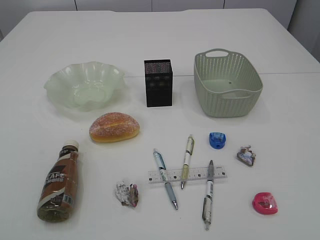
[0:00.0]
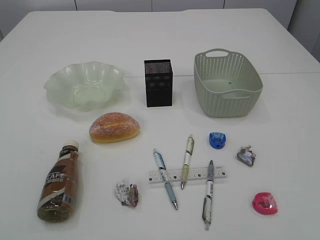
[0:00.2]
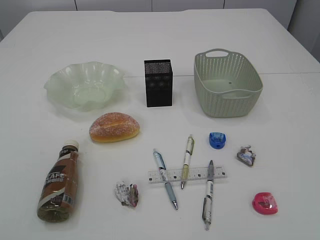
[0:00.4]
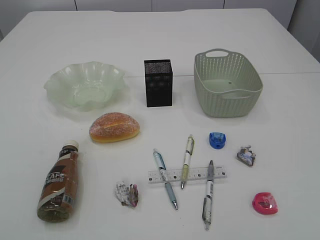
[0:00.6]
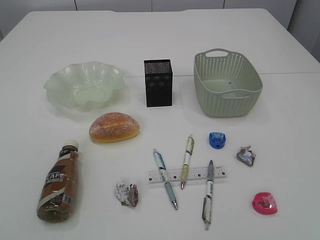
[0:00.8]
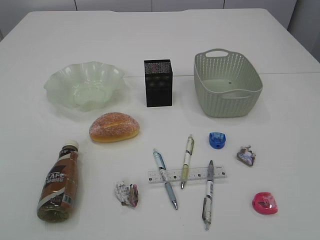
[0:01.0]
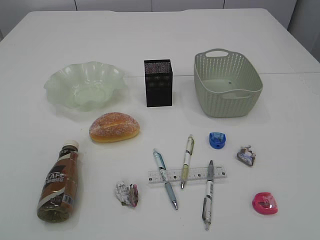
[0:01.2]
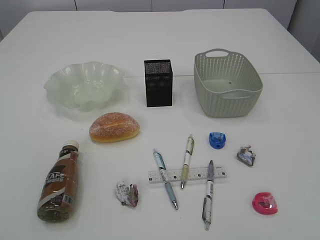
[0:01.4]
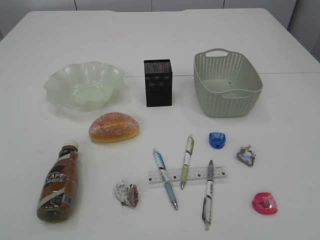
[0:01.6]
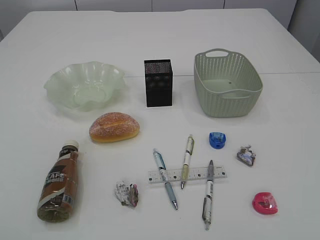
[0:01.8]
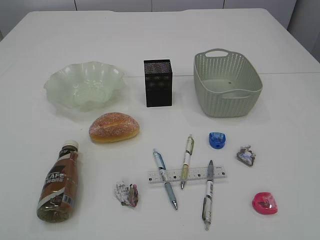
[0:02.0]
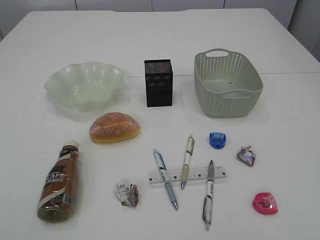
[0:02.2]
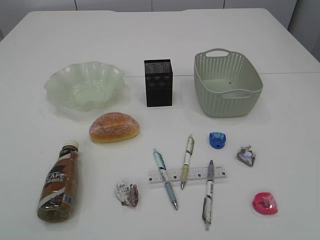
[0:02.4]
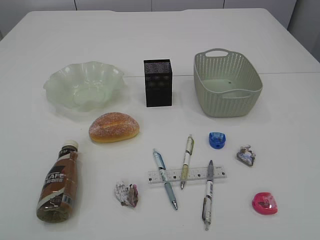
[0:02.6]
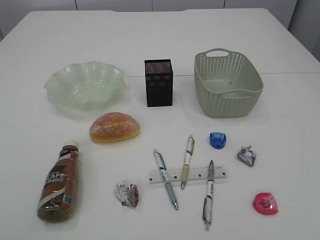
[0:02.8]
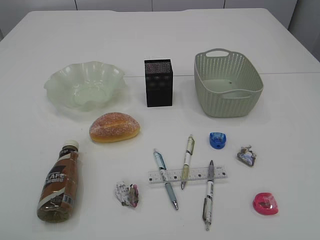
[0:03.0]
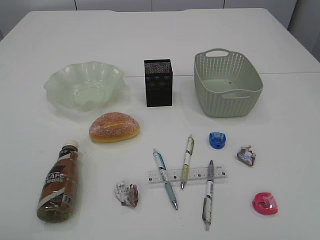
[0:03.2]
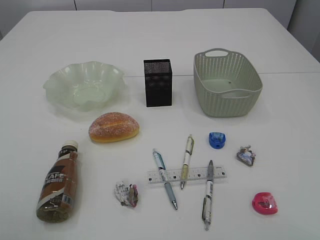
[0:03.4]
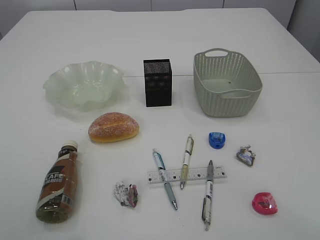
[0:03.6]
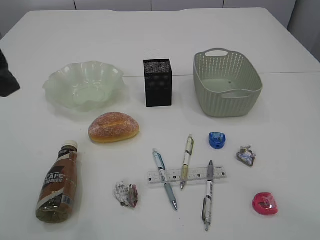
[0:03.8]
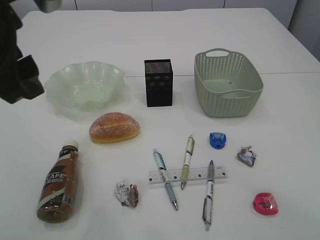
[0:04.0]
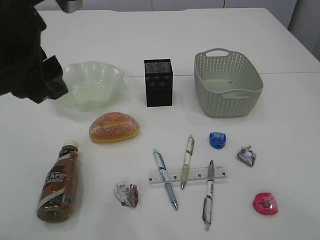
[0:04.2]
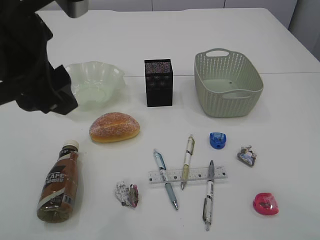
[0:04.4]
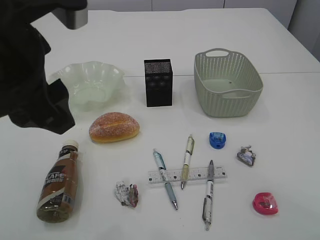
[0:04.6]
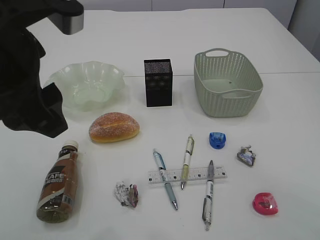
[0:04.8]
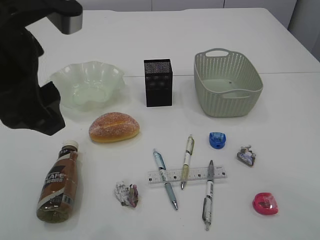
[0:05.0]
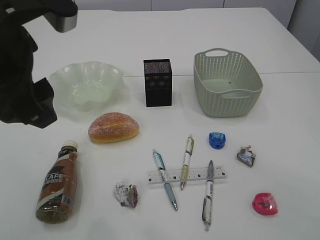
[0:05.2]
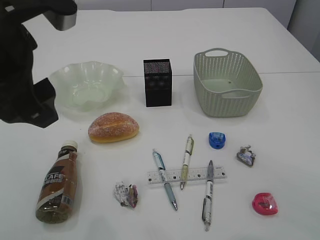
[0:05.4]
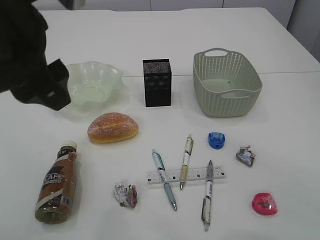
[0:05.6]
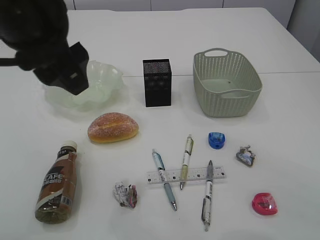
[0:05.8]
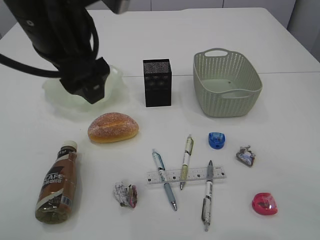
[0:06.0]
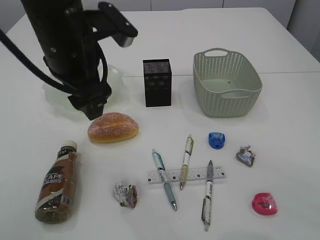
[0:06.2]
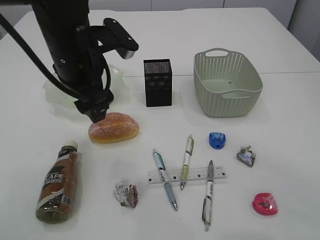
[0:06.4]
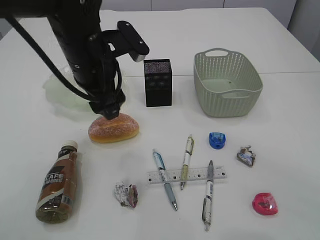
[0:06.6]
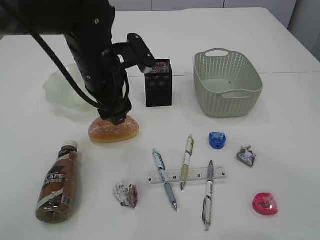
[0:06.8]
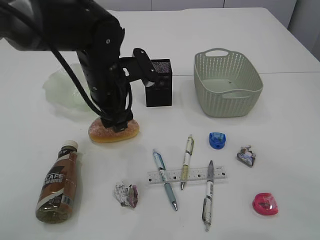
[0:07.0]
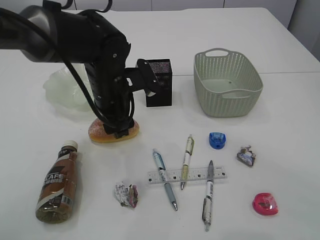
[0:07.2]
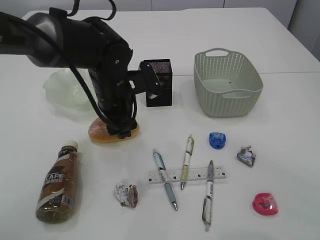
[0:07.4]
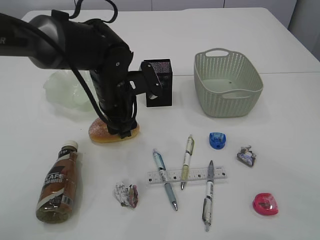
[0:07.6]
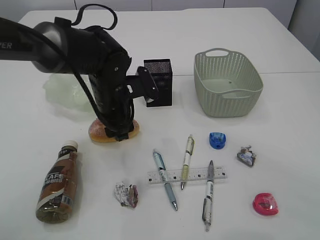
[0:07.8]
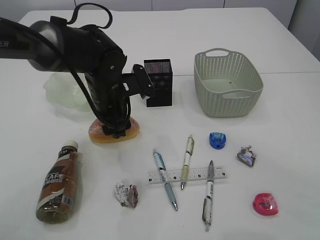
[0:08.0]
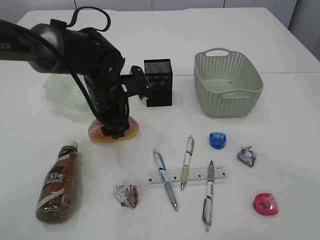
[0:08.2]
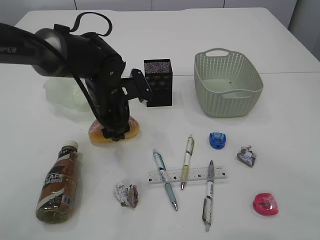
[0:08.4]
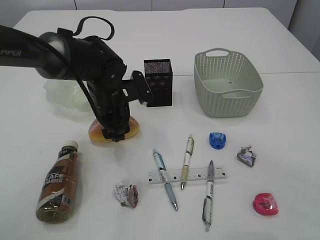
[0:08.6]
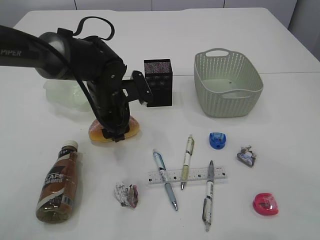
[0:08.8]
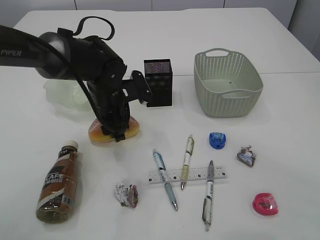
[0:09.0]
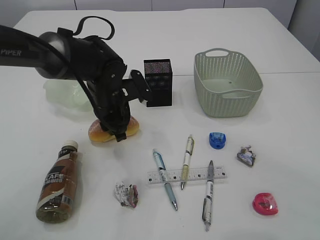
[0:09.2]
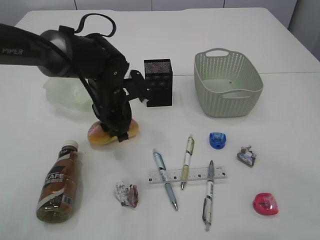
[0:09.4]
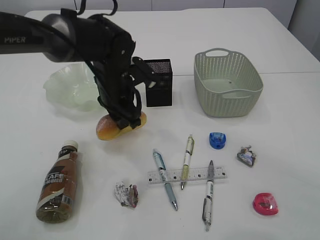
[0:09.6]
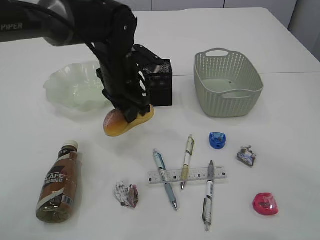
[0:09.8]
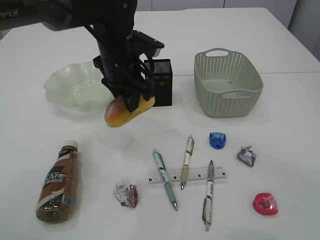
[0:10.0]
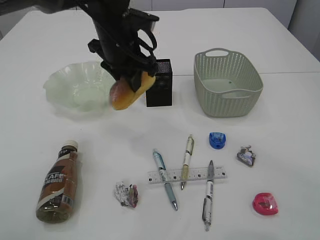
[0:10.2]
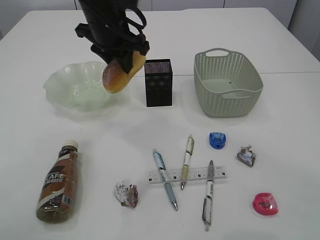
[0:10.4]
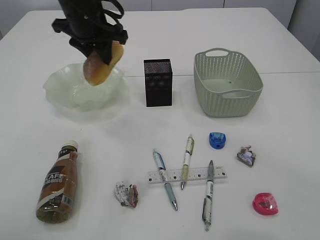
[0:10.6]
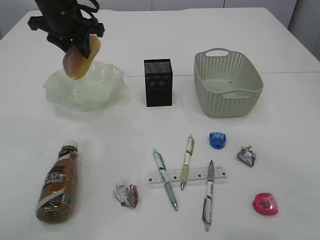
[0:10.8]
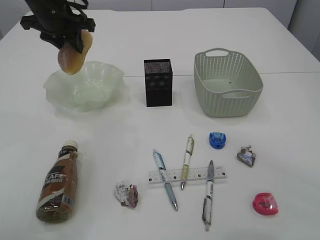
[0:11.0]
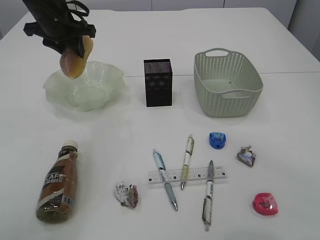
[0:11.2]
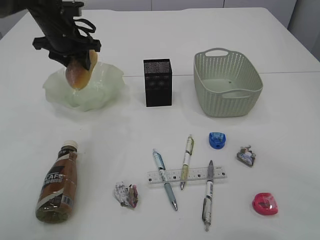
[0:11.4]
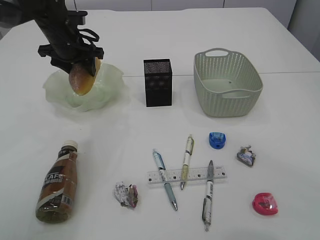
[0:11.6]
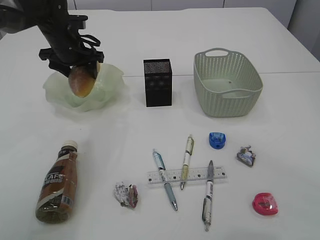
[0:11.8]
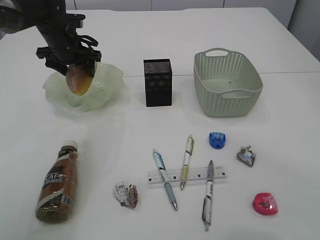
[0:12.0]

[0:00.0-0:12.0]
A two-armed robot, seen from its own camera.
0:03.0 to 0:04.4: The left gripper is displaced to the right, downward and forward by some 20 cm.
0:04.4 to 0:06.0: The left gripper shifts by about 5 cm, while the right gripper shifts roughly 5 cm forward.
0:06.0 to 0:07.6: The left gripper shifts some 20 cm downward and forward.
0:07.6 to 0:09.0: The grippers make only small movements.
0:09.0 to 0:10.4: The left gripper moves upward, roughly 15 cm, and closes its fingers.
0:10.4 to 0:12.0: The left gripper goes approximately 15 cm to the left, forward and downward, and opens.

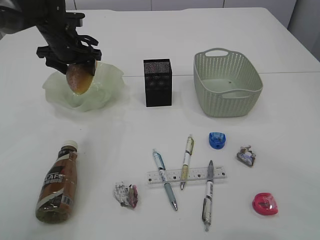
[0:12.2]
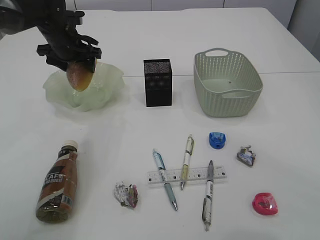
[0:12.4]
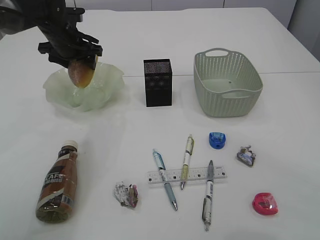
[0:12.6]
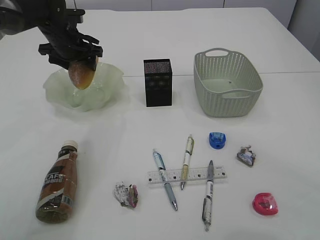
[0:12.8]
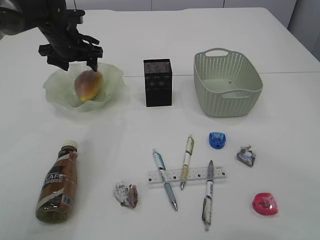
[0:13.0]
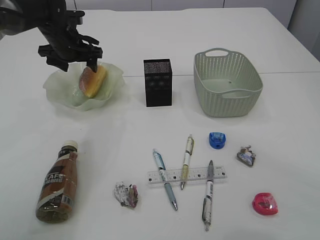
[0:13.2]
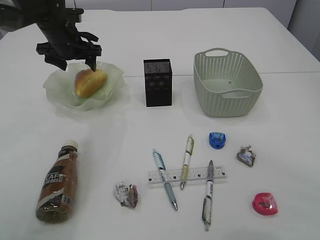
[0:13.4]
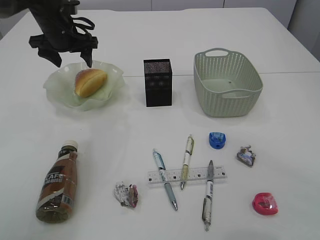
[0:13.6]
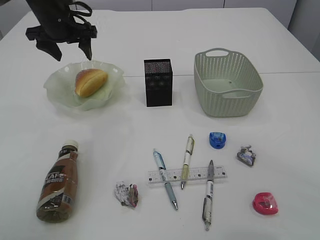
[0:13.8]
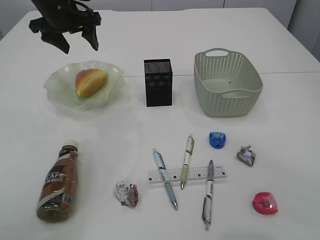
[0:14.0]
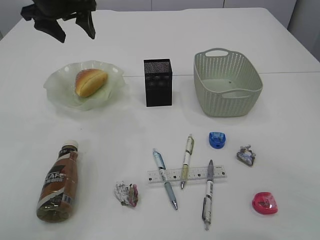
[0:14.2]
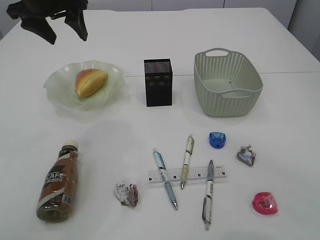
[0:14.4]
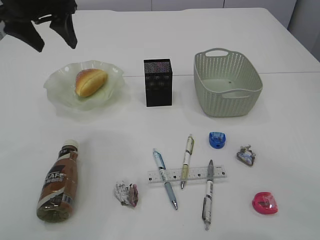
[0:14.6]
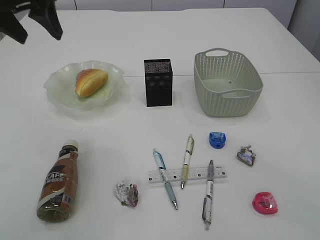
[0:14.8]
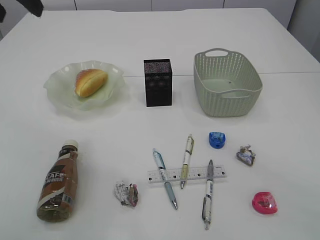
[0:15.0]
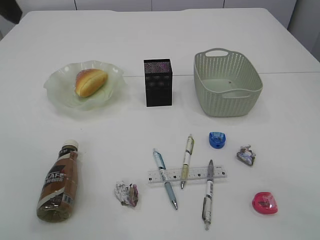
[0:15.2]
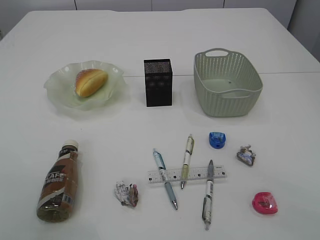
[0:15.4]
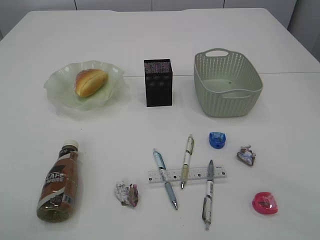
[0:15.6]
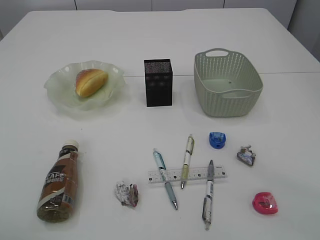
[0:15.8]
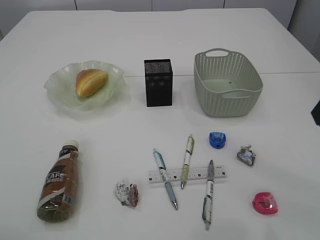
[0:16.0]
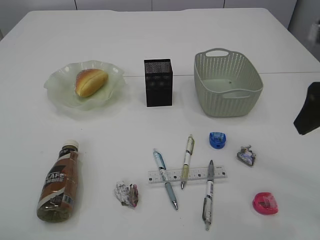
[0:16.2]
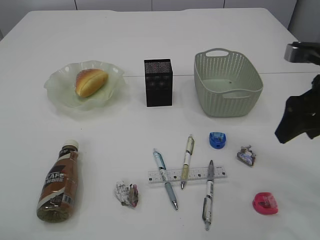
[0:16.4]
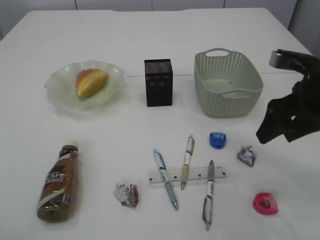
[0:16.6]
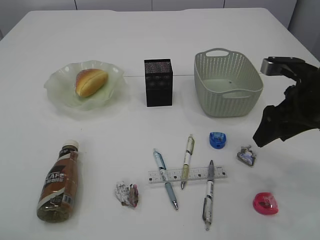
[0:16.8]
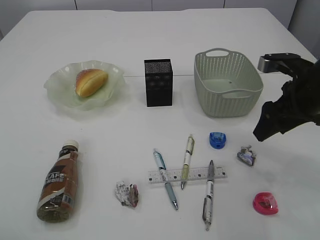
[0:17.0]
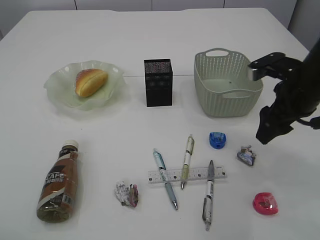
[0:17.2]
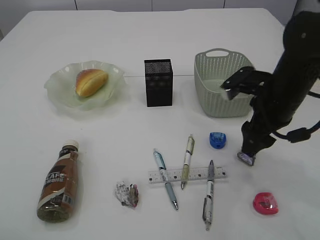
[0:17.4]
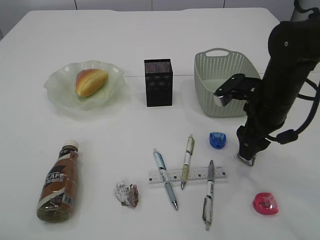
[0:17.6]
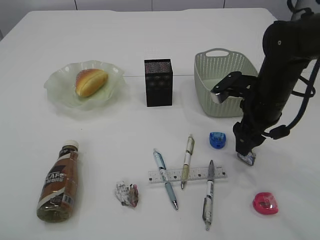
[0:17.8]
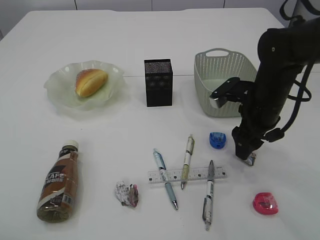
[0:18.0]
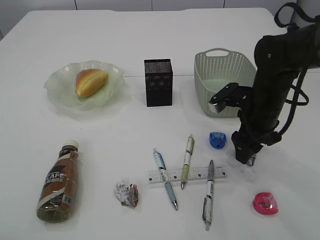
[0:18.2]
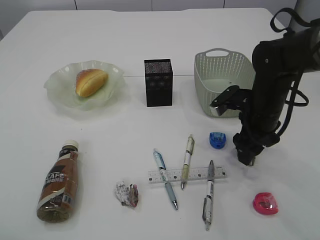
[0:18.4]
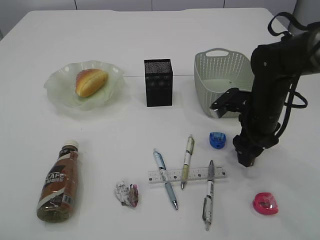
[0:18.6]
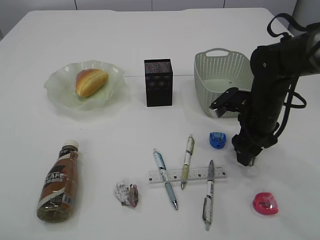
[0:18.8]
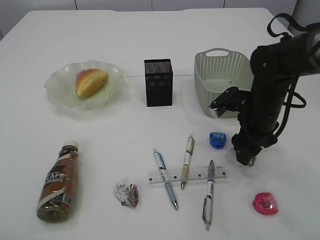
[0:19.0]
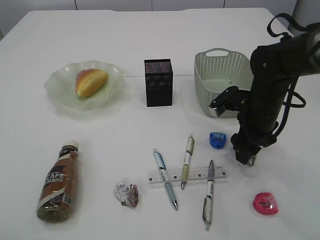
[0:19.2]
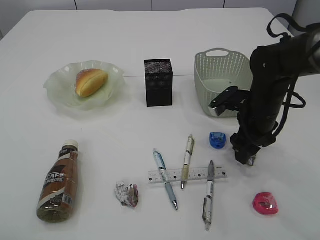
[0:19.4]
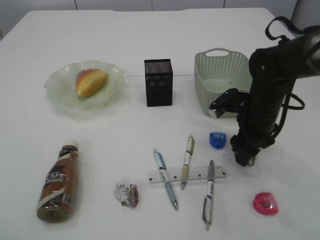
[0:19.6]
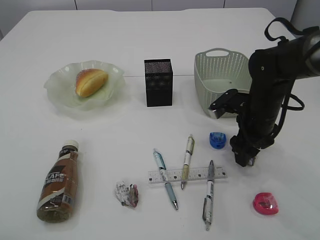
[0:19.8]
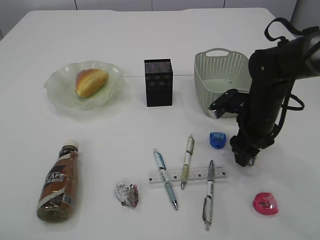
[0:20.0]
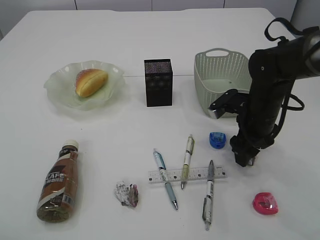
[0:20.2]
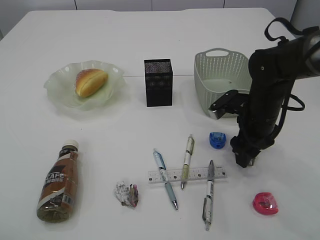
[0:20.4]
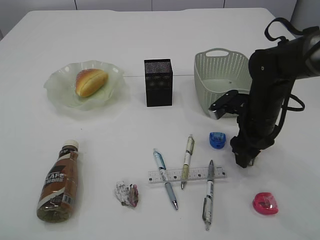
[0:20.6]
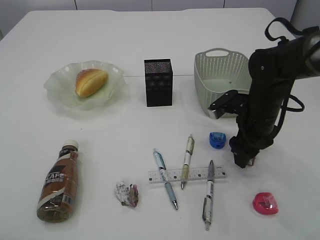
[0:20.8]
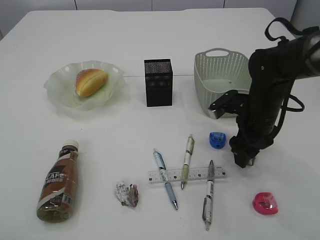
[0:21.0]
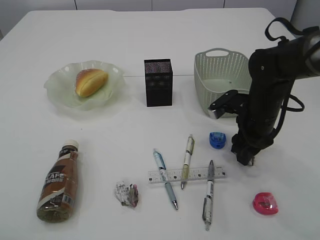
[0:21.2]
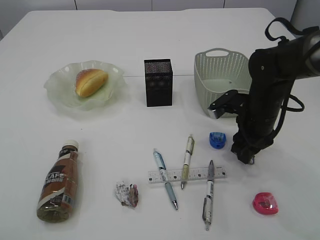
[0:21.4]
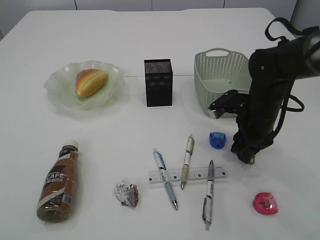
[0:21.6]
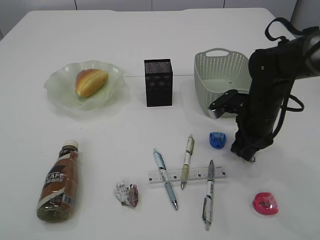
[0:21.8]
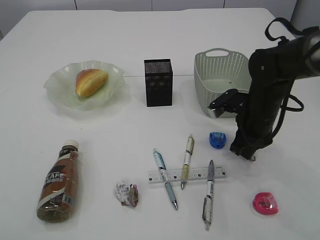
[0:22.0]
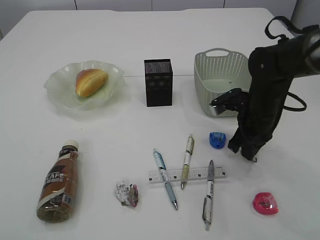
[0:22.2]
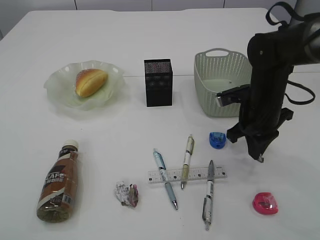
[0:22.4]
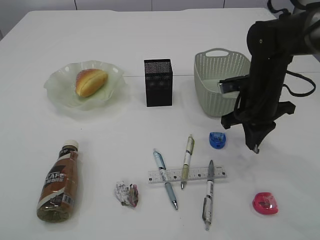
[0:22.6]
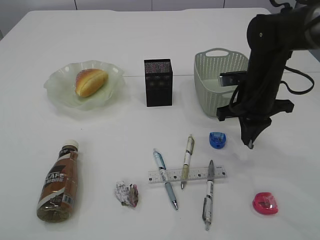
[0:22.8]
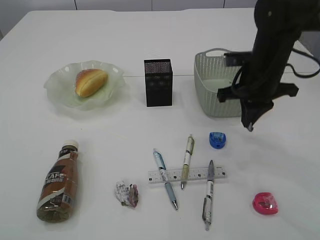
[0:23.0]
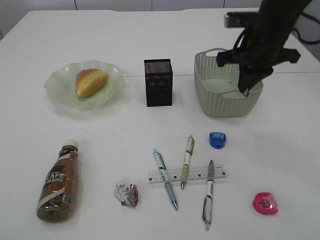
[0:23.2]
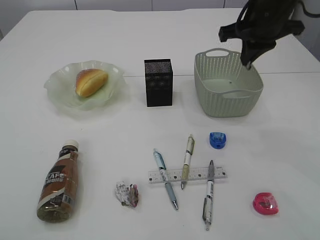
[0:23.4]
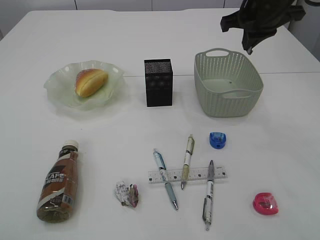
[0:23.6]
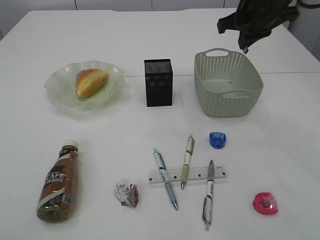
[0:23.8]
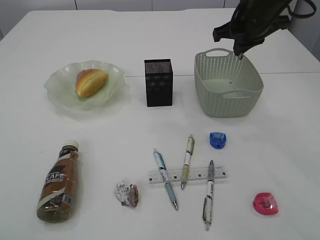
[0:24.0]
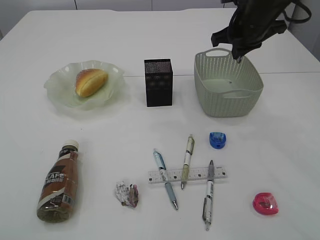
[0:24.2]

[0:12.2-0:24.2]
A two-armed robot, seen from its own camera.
Step, 0:13.8 to 0:22.6: Pick up the waste paper.
0:12.2 to 0:13.8: The left gripper travels upward by some 5 cm.
0:13.8 to 0:15.2: The left gripper shifts about 25 cm backward and upward.
0:15.2 to 0:16.6: The left gripper is displaced backward by roughly 15 cm. The right gripper travels downward and forward by about 20 cm.
0:16.6 to 0:18.2: The right gripper heads downward, forward and to the left, covering about 10 cm.
0:18.2 to 0:19.8: The grippers make only small movements.
0:19.8 to 0:21.2: Neither gripper changes place.
0:21.2 to 0:22.6: The right gripper closes its fingers.
0:22.6 to 0:24.2: The right gripper heads upward and forward, covering some 15 cm.
